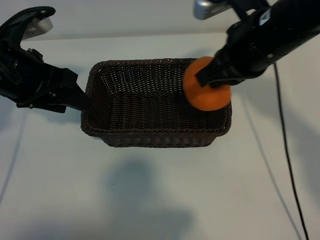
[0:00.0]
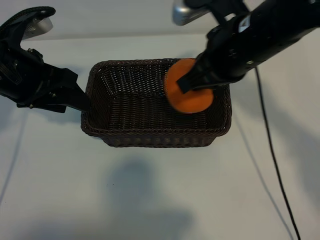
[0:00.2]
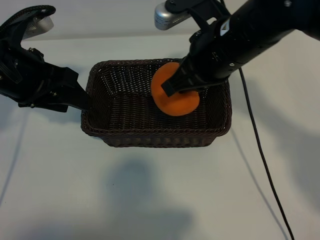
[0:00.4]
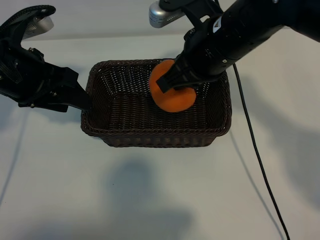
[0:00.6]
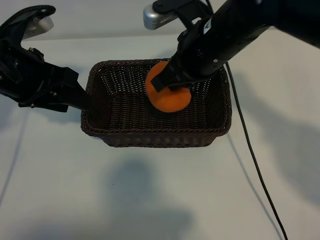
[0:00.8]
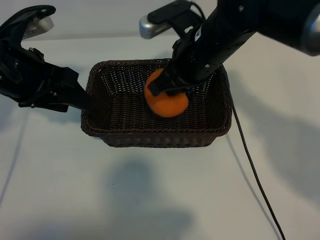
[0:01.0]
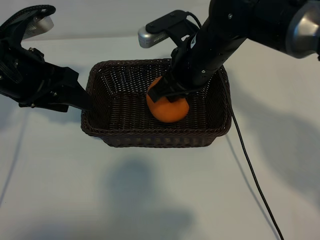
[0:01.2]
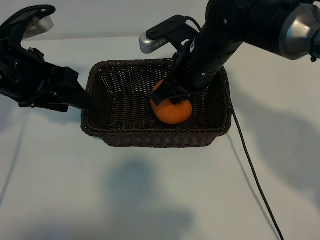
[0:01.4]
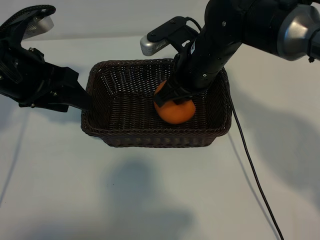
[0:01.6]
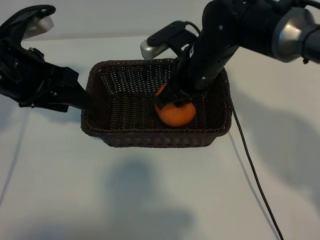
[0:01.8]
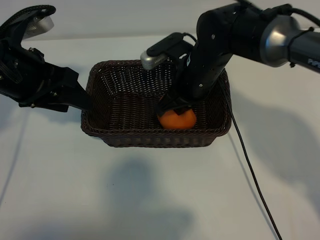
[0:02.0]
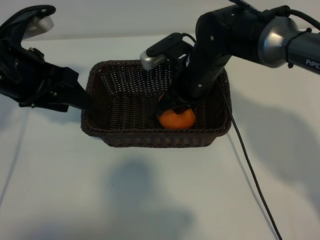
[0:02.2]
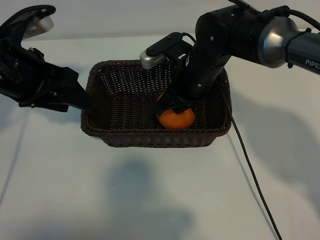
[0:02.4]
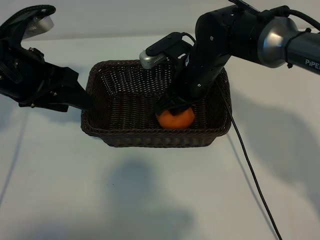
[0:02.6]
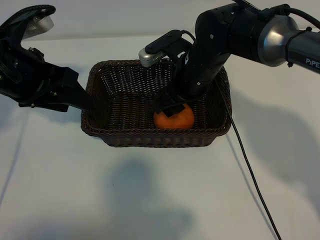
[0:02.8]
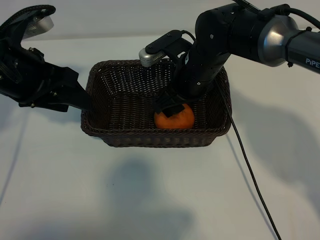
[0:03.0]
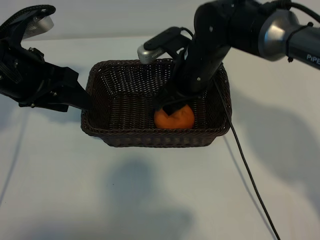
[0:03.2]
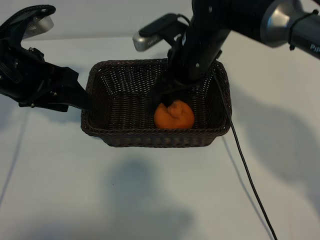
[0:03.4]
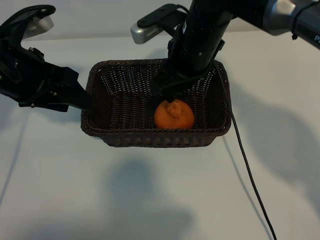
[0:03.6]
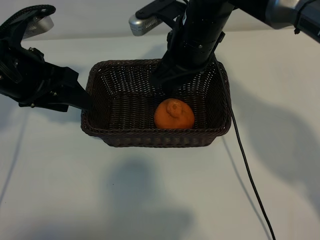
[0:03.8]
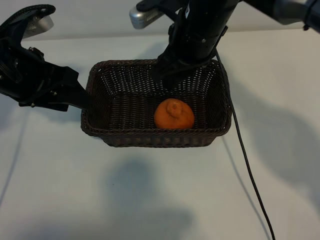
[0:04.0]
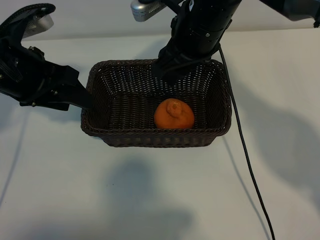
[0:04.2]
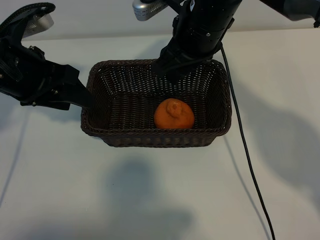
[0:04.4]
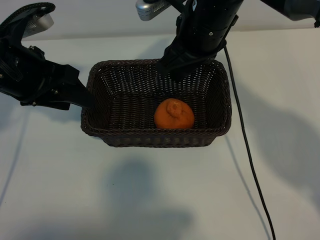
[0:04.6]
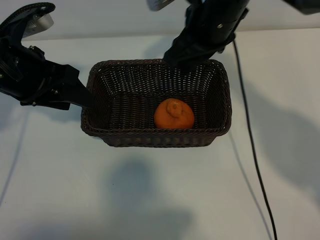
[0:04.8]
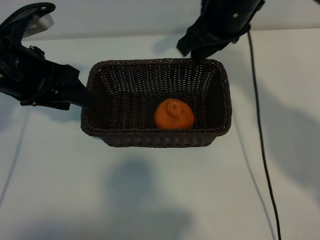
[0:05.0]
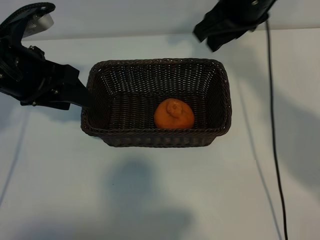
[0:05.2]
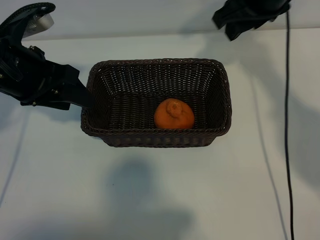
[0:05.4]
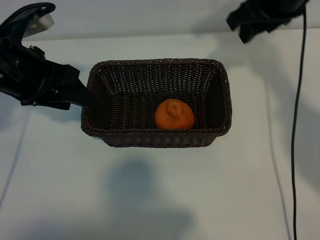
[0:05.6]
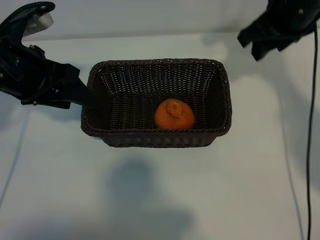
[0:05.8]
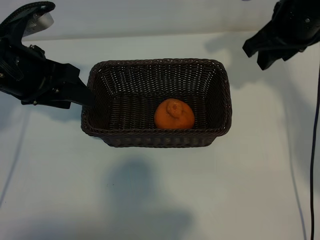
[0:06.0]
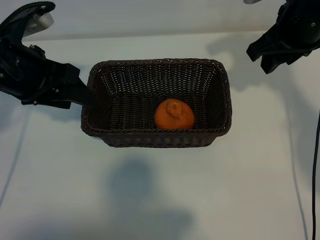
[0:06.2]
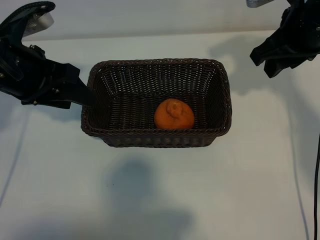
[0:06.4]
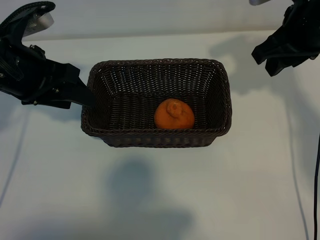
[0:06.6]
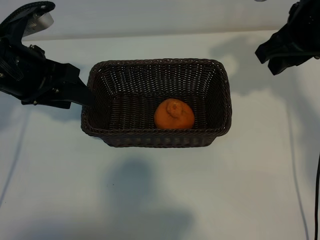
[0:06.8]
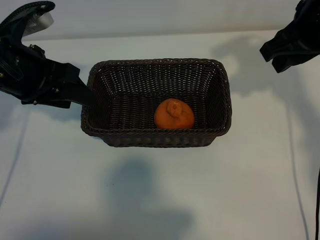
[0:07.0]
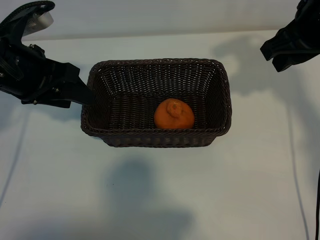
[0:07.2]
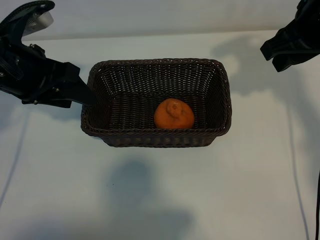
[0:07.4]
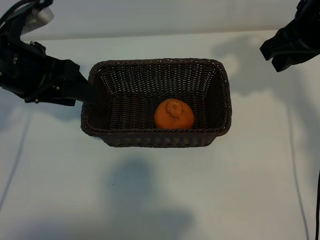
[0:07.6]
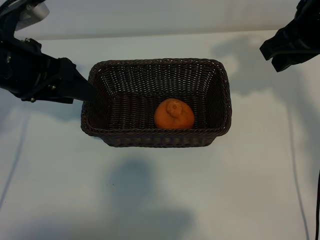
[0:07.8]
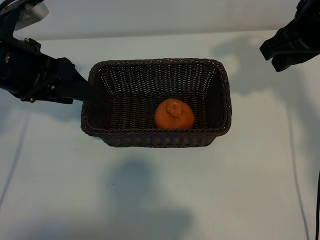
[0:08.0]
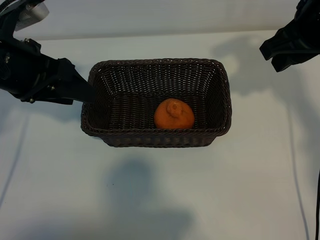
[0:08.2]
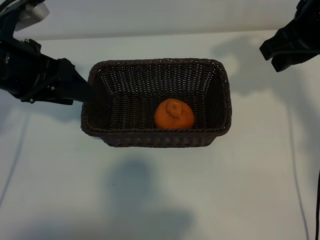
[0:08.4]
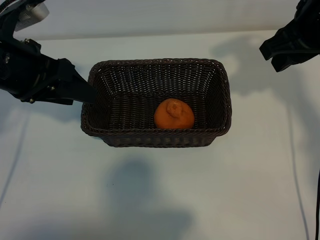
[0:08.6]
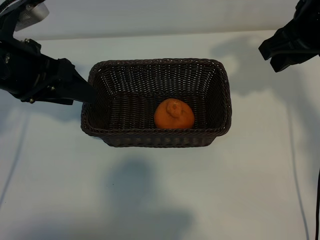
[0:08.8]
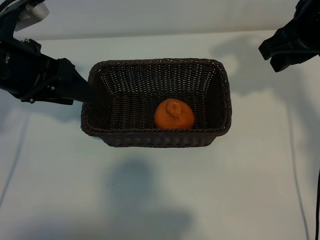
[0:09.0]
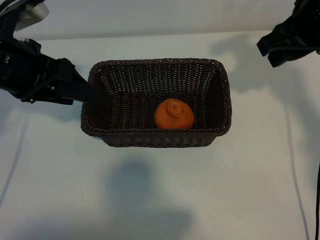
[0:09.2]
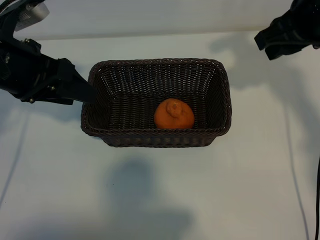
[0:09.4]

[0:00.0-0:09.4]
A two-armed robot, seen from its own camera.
Task of the whole recording: pick up the orange and put it into the basket.
Step, 0:00.0 to 0:02.8: Place the orange in the basket with right gripper.
